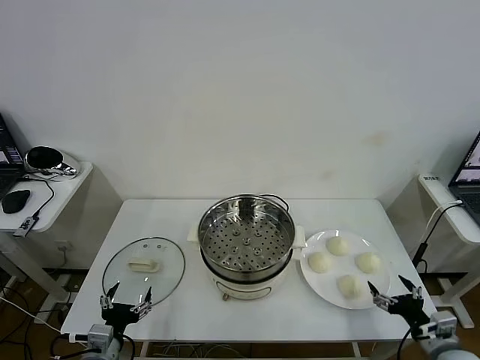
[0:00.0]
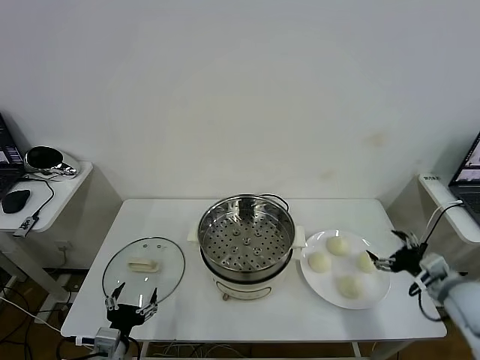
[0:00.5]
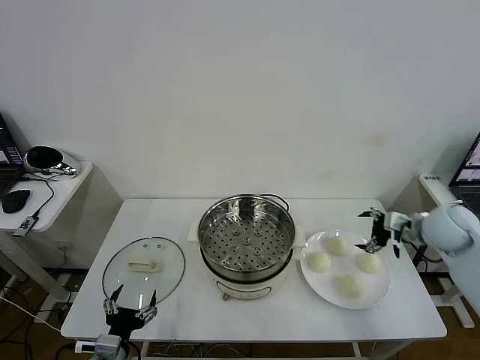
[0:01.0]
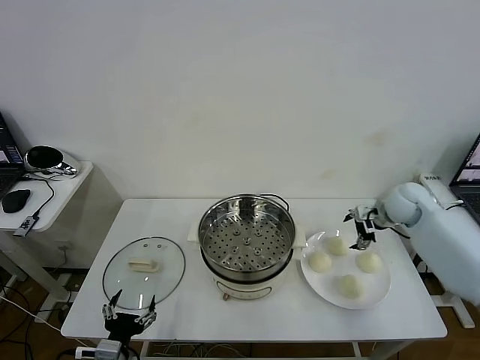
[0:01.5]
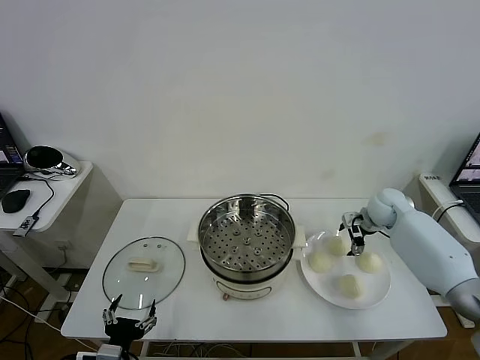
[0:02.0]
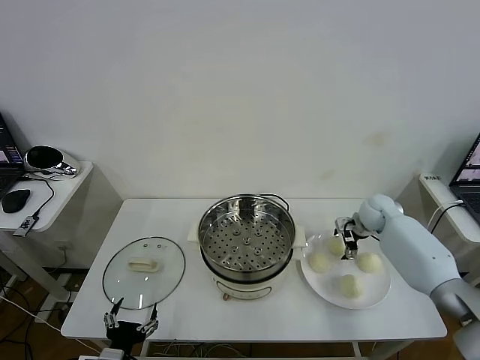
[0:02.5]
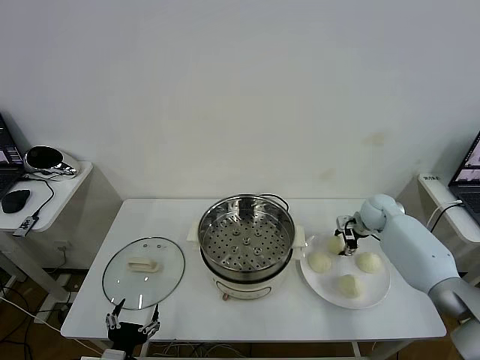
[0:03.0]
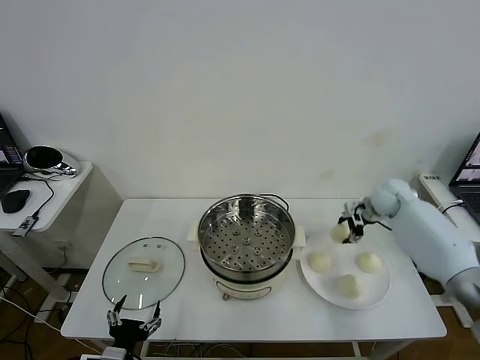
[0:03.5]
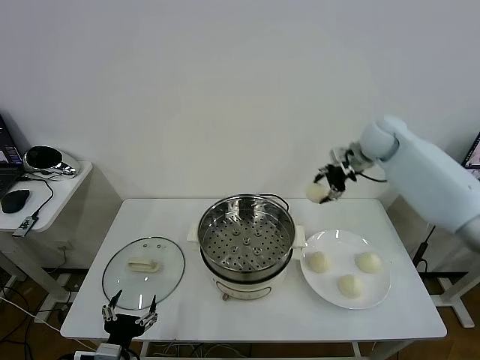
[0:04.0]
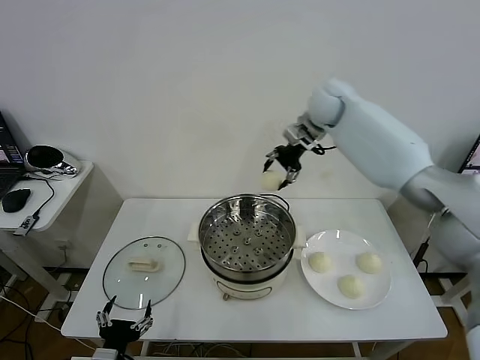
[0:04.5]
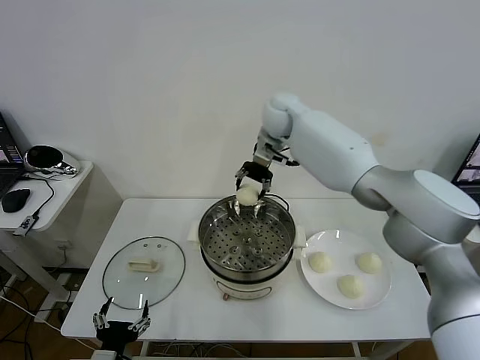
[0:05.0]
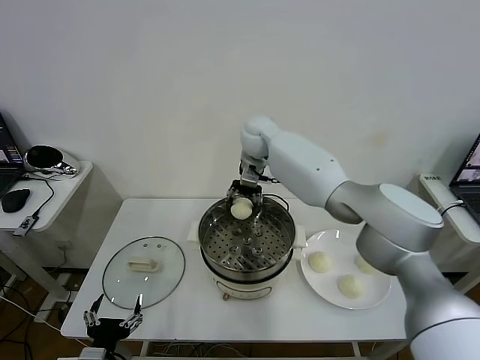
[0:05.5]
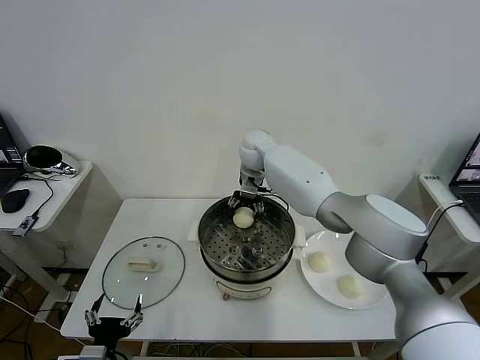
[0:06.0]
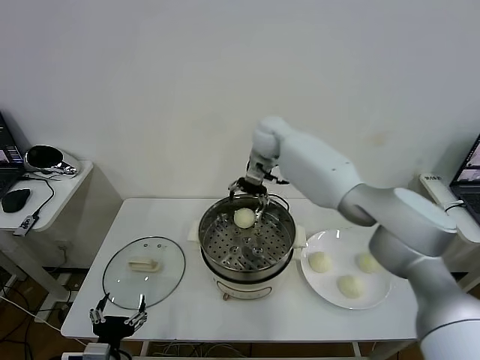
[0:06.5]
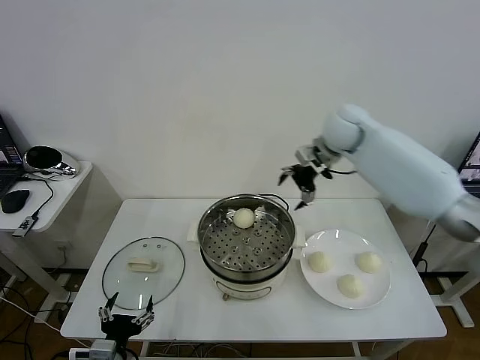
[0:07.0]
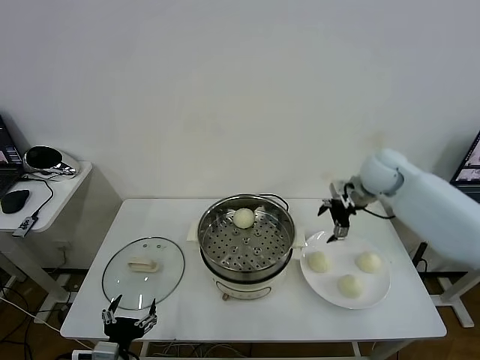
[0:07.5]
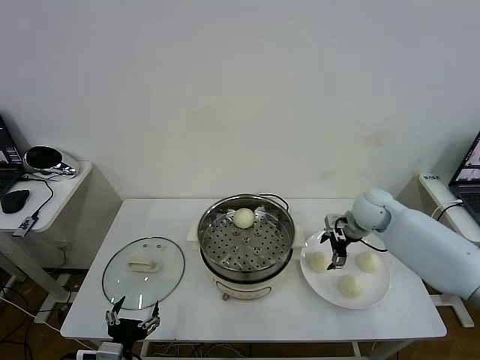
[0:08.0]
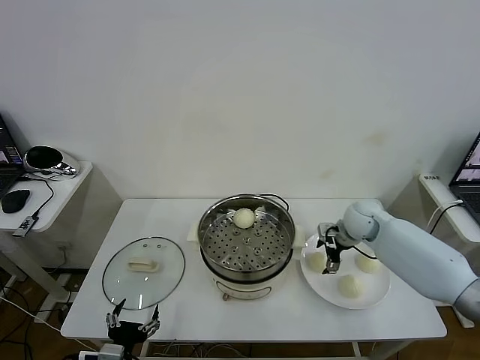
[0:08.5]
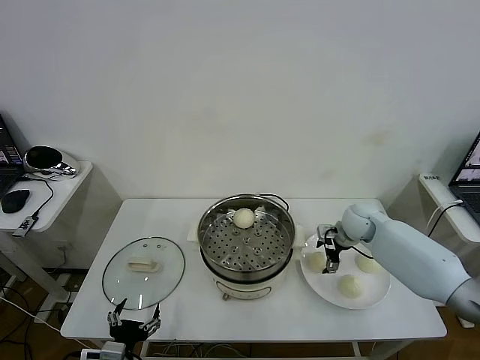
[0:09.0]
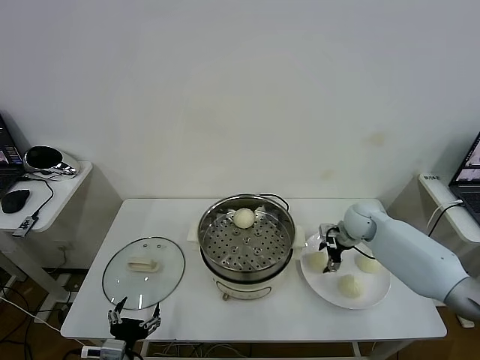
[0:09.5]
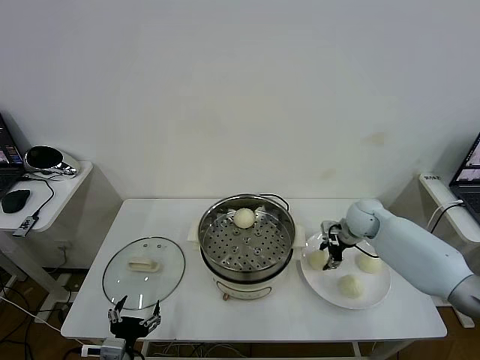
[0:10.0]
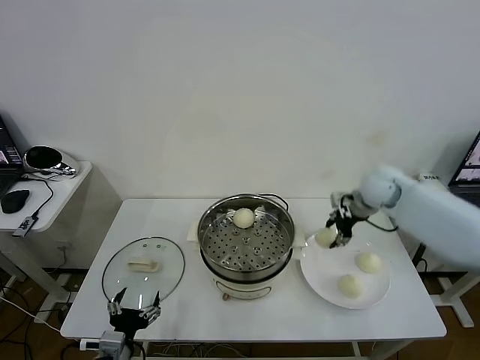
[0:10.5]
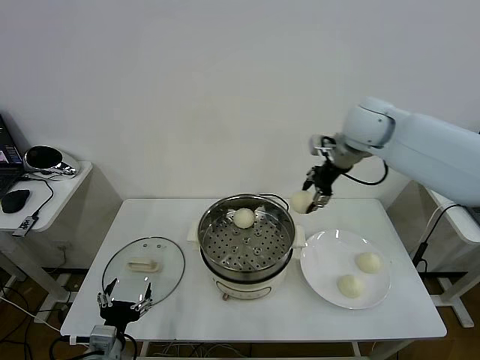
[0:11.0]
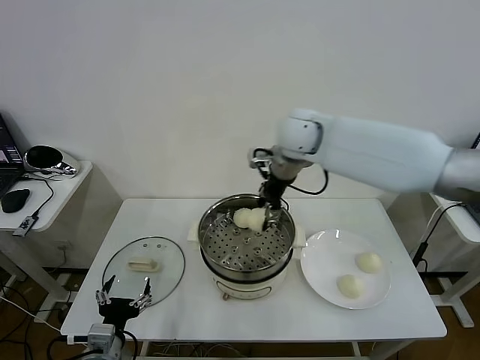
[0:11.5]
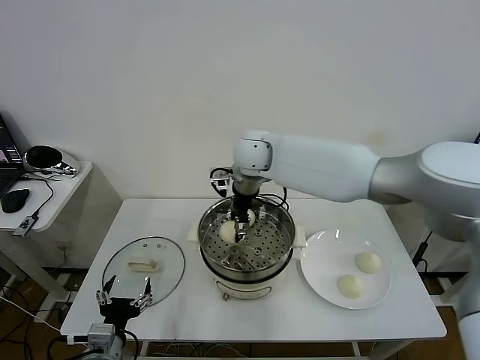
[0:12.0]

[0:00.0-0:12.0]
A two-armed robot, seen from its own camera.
Task of the whole recording: take steamed baozi put them in steamer then cover it.
Step, 0:00.0 to 0:02.5: Grasp the baozi in the plate with right gripper.
Step, 0:03.0 to 0:06.0: Place the baozi on the steamer with right gripper.
Step, 0:06.5 to 0:09.5: Grasp the baozi in the plate with right gripper.
0:02.0 to 0:04.0: The right gripper is displaced upward and to the left by approximately 25 cm, and closes.
0:04.0 to 0:06.0: The right gripper is displaced to the left by about 25 cm, and opens.
0:06.0 to 0:08.0: The right gripper shifts roughly 30 cm to the right and backward.
0:08.0 to 0:10.0: The right gripper closes its fingers.
0:10.0 to 0:12.0: The right gripper is displaced to the left and upward by some 35 cm.

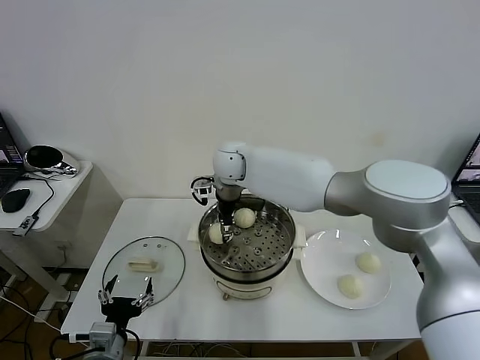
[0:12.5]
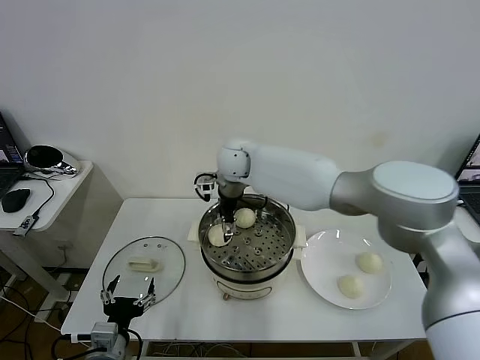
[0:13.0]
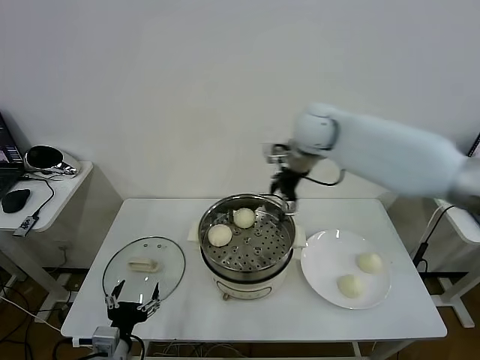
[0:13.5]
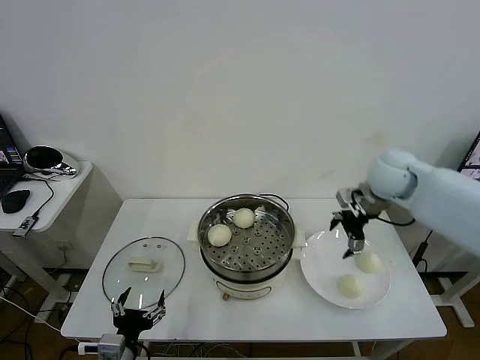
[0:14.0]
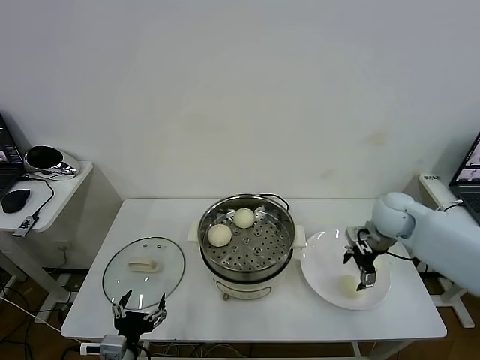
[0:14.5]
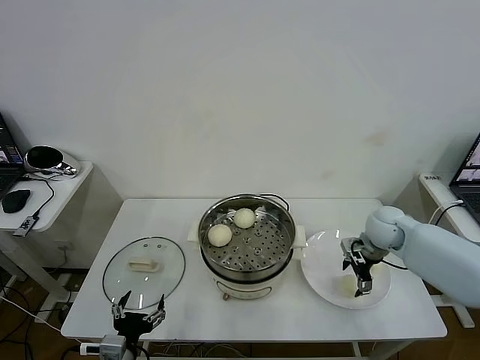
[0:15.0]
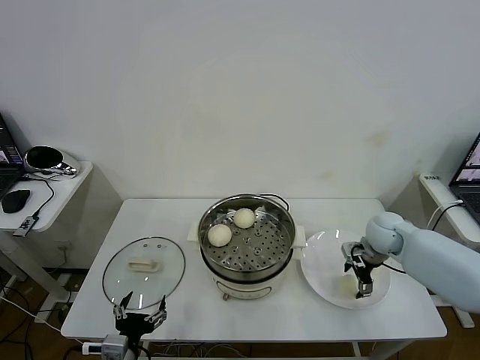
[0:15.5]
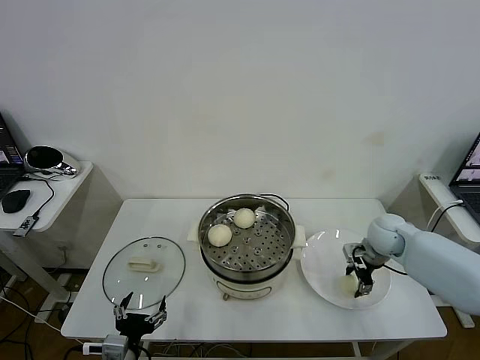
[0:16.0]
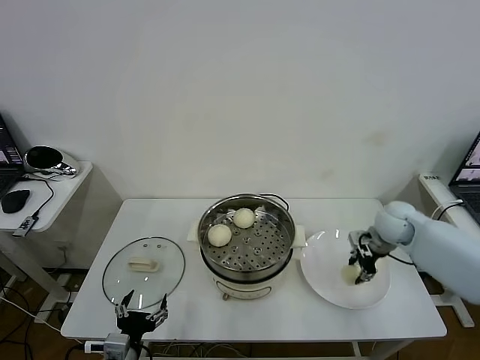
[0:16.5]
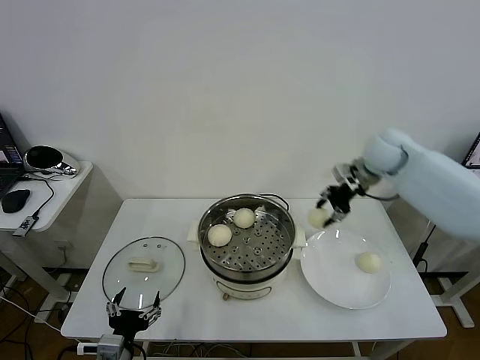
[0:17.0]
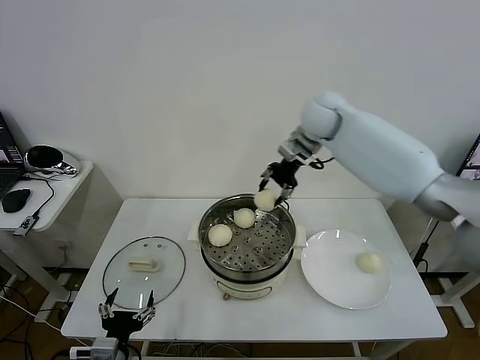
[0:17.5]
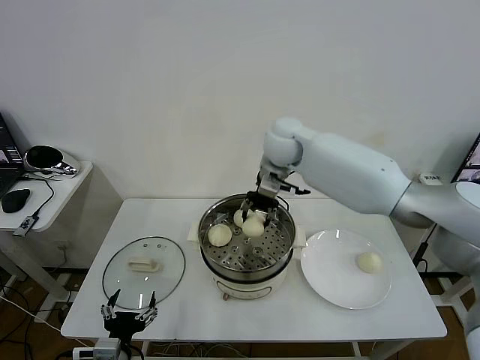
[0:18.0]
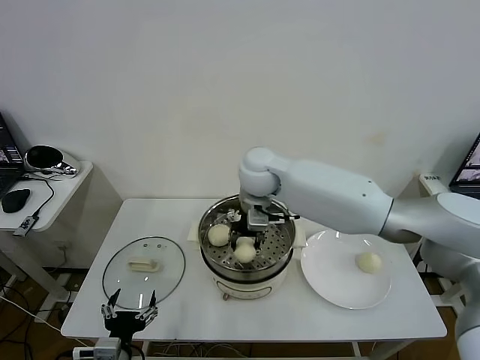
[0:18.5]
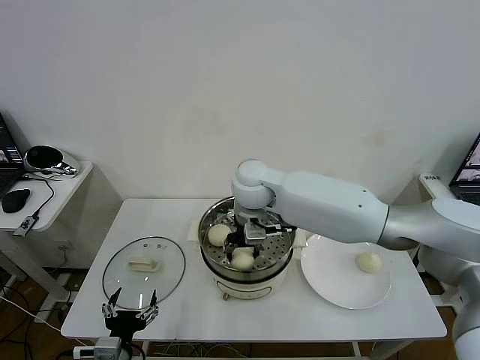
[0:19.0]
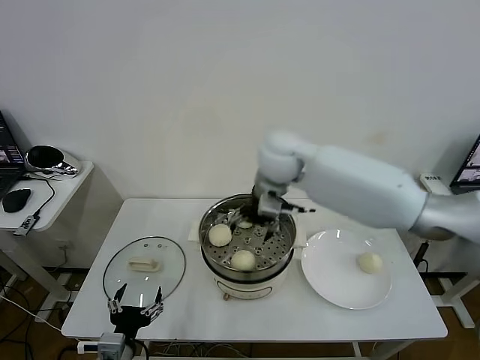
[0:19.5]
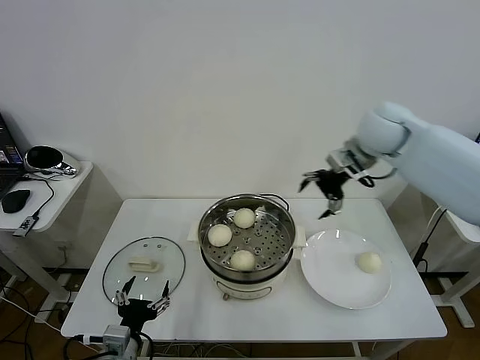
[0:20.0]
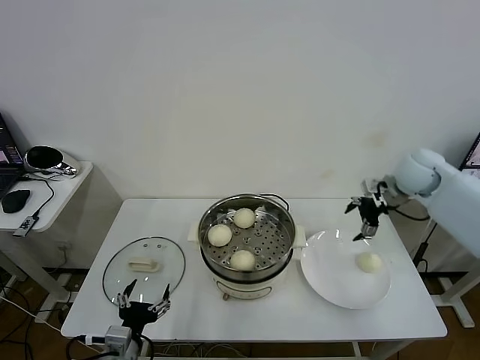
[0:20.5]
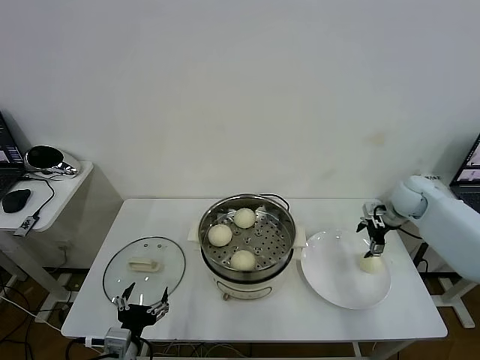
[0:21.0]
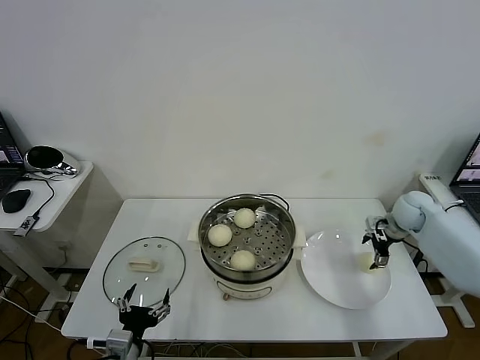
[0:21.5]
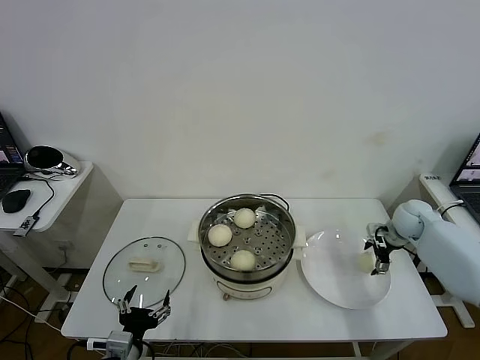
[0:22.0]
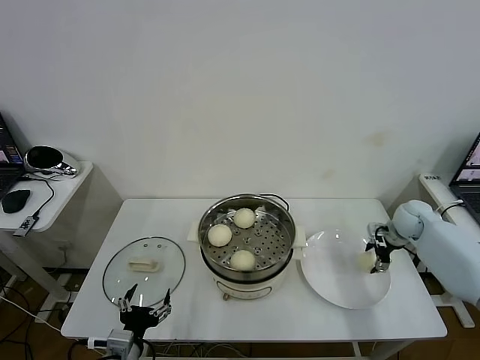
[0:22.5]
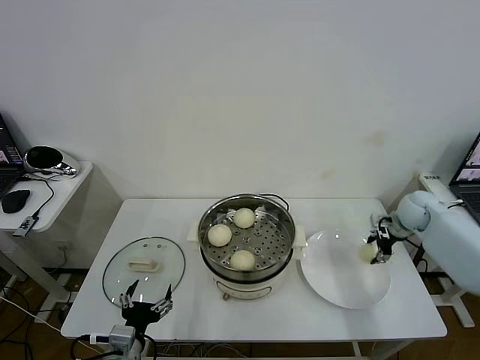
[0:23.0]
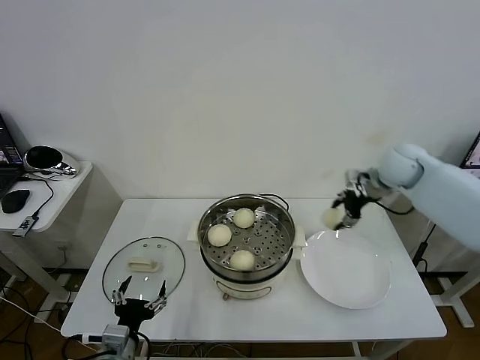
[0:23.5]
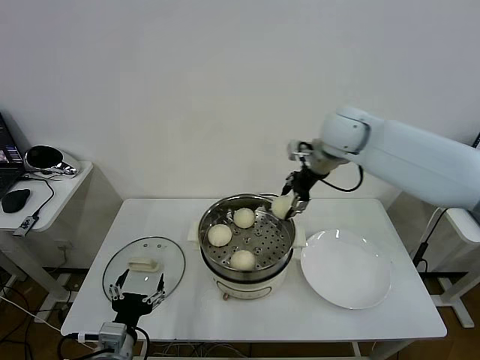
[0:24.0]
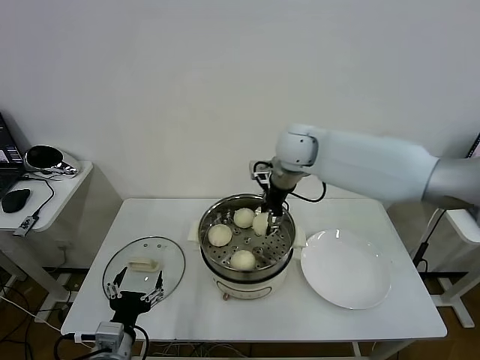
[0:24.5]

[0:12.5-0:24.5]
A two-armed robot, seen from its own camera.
Task of the whole recording: take steamed baozi put them in steamer then cover it.
Step, 0:13.5 to 0:16.0: Grasp the baozi in the plate with right gripper.
Step, 0:16.5 to 0:19.0: Place the baozi on the steamer with right gripper.
Step, 0:19.5 to 0:22.5: Grasp the baozi in the plate with right gripper.
0:12.5 to 0:14.5: The right gripper travels to the right by some 40 cm, and opens.
0:14.5 to 0:16.5: The right gripper closes.
0:16.5 to 0:18.5: The right gripper goes some 35 cm to the left.
0:18.5 to 0:20.5: The right gripper moves to the right, roughly 35 cm, and opens up.
0:20.5 to 0:22.5: The right gripper goes some 15 cm downward.
0:22.5 to 0:24.5: The right gripper goes about 40 cm to the left and upward.

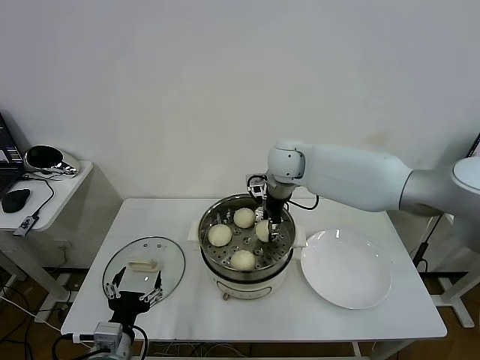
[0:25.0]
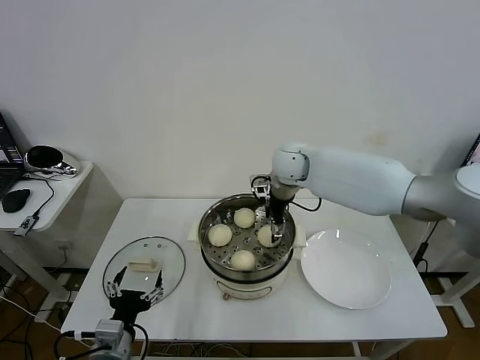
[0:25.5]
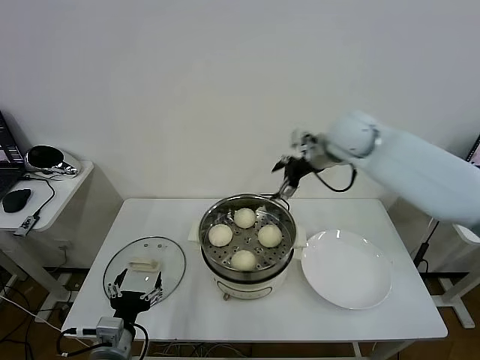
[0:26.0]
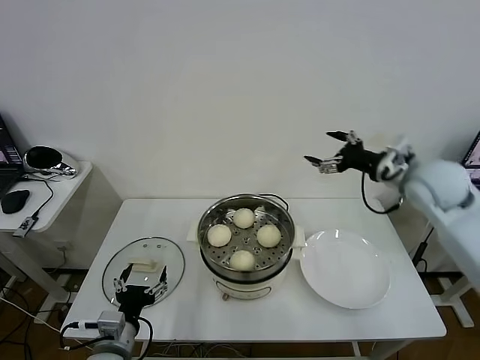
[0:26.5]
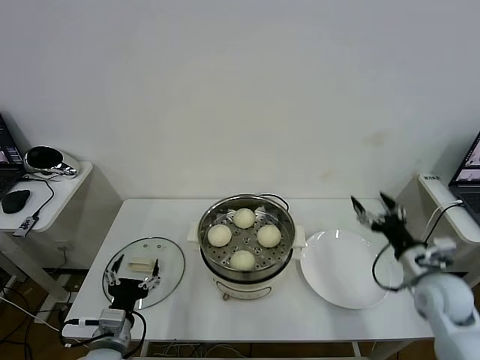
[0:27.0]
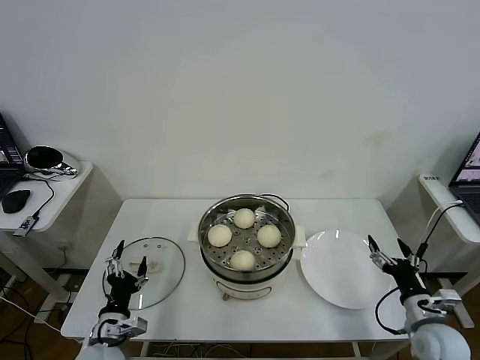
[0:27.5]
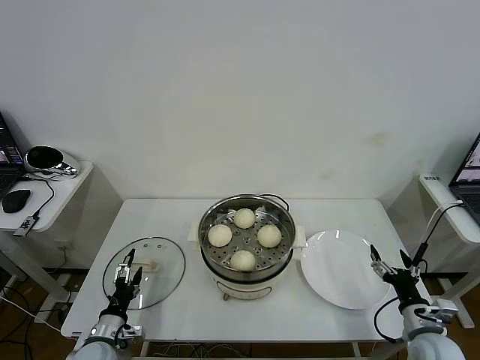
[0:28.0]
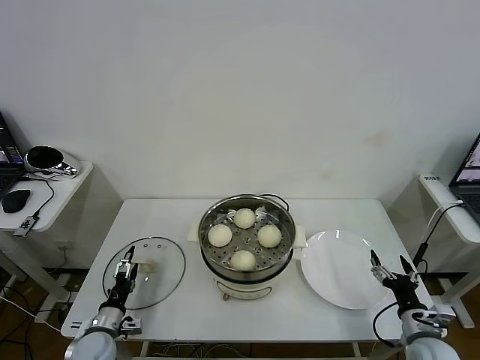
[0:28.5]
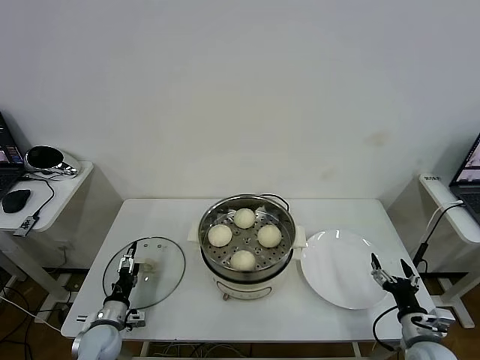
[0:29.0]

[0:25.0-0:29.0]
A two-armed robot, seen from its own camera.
Task of the whole recording: take steamed baozi put them in steamer then cover it.
0:25.0 to 0:27.0: The right gripper shifts roughly 40 cm to the right, backward and downward, and opens.
0:27.0 to 0:29.0: The left gripper shifts about 20 cm downward, to the left and forward. The right gripper goes about 15 cm downward and backward.
